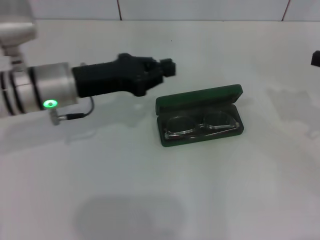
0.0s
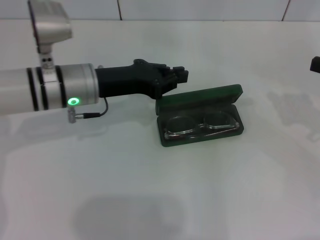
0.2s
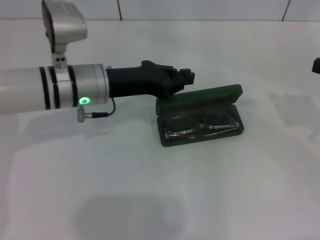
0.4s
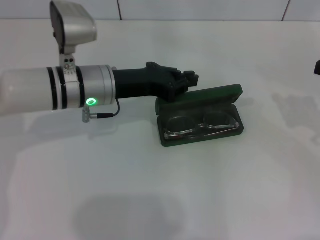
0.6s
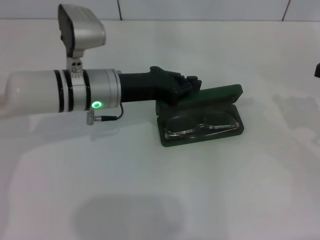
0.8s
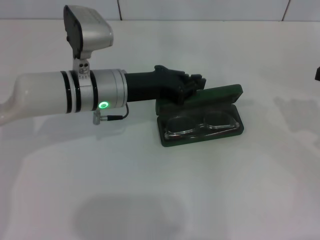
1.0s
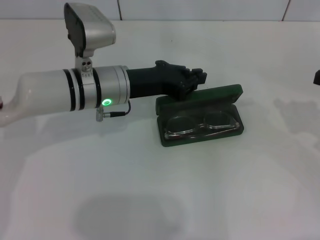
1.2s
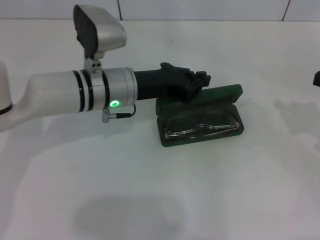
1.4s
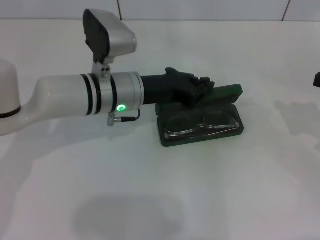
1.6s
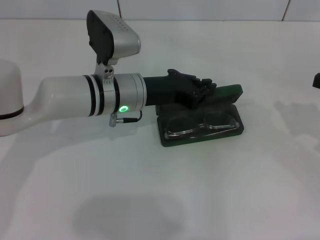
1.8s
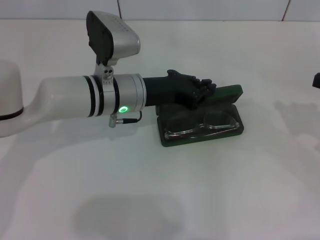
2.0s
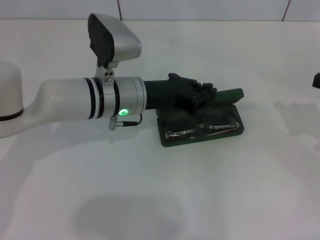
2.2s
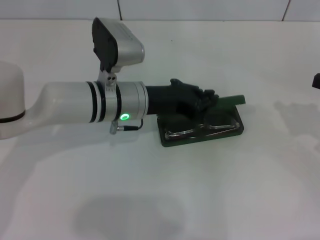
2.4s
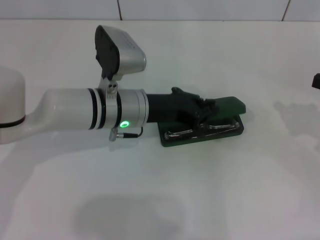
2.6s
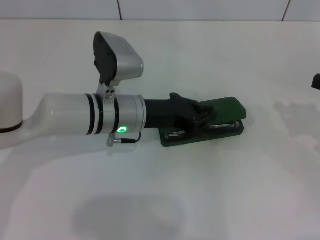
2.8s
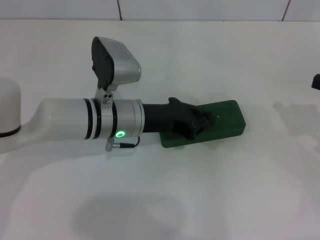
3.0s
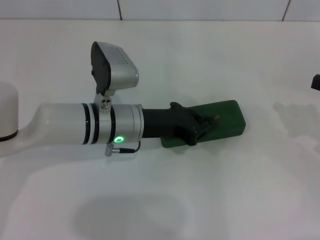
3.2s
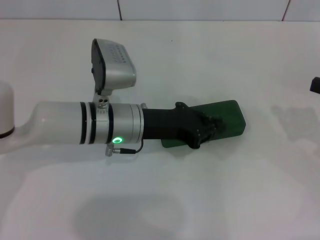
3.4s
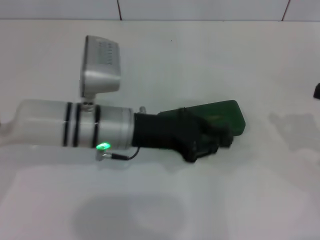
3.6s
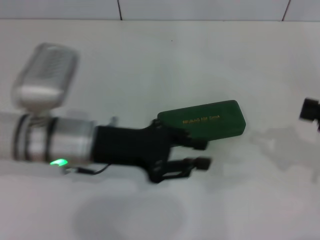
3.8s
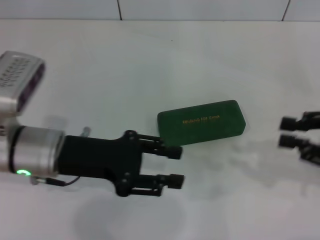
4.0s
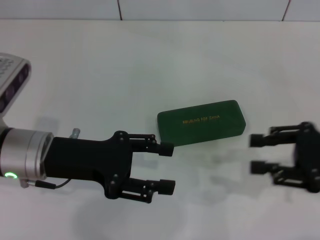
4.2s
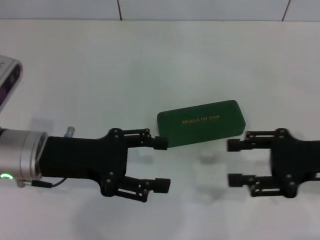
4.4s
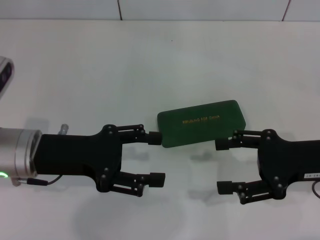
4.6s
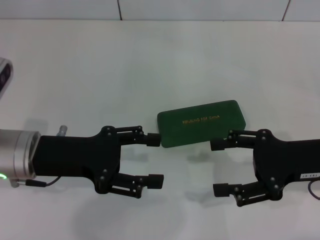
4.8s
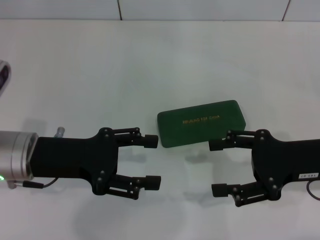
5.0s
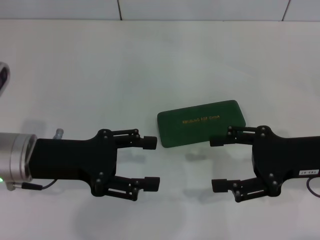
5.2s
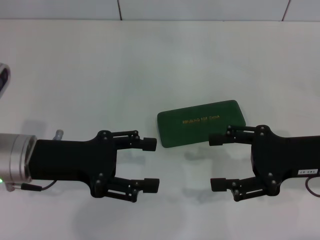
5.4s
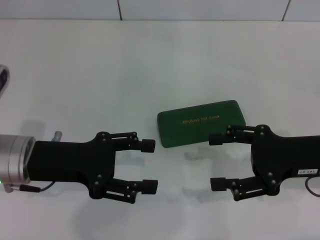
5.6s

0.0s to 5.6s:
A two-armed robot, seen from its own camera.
Step, 0.0s to 2.8s: Close the glasses case with your left hand.
0.0s to 1.4s: The left gripper heads to the right, covering roughly 10 cm.
1.4s to 2.8s: There are only small adjustments of the grippers.
2.8s to 4.2s: The right gripper shifts about 5 cm to the left; the left gripper shifts some 15 cm to the left and backward, and opens its fingers.
4.2s to 5.6s: The right gripper goes approximately 5 cm to the left, and opens up.

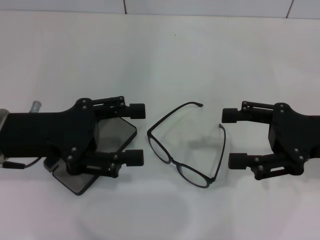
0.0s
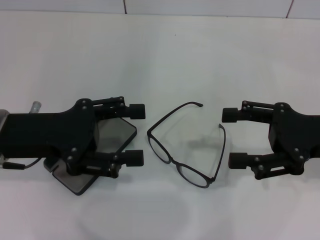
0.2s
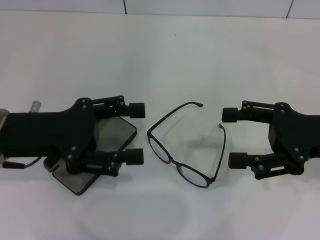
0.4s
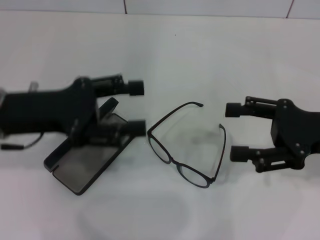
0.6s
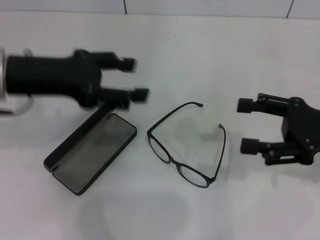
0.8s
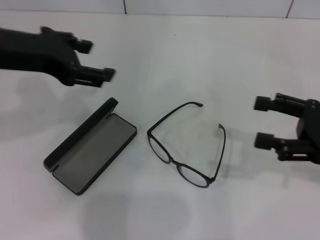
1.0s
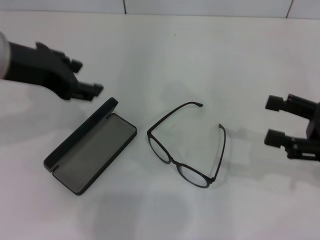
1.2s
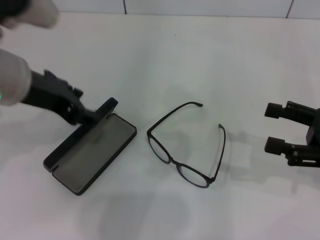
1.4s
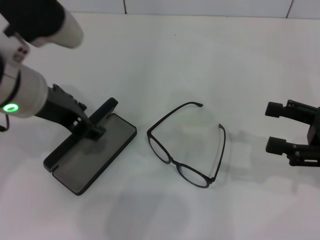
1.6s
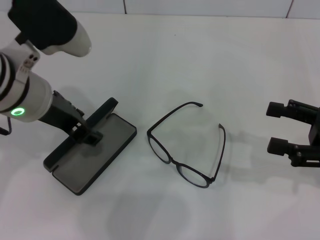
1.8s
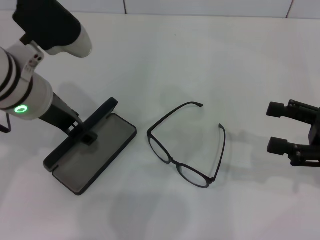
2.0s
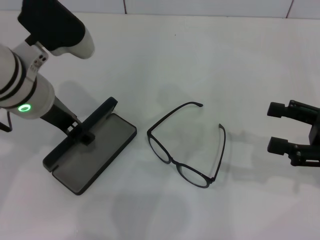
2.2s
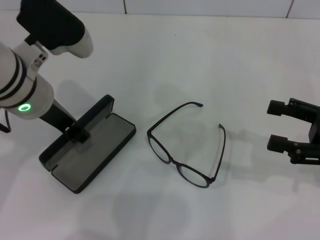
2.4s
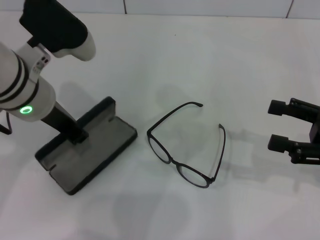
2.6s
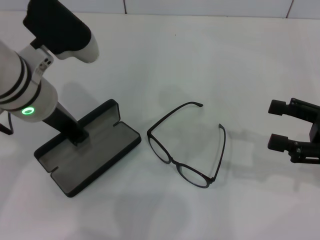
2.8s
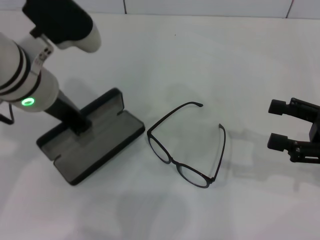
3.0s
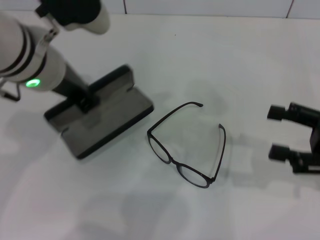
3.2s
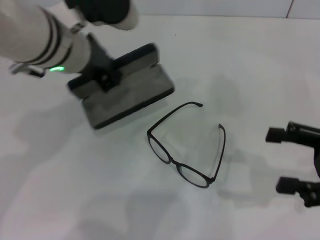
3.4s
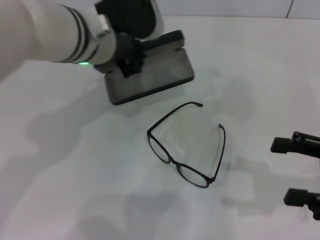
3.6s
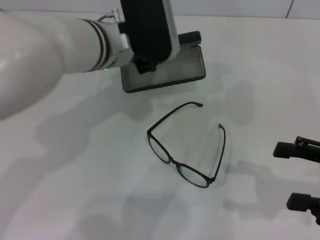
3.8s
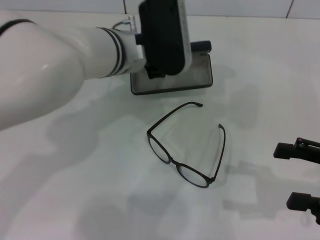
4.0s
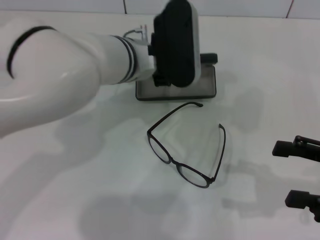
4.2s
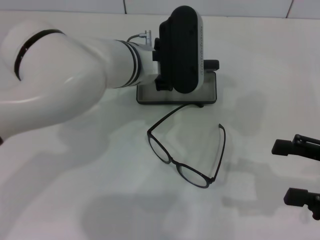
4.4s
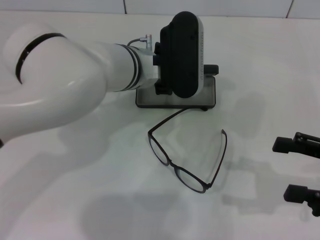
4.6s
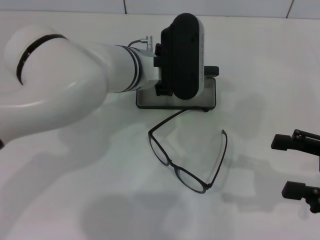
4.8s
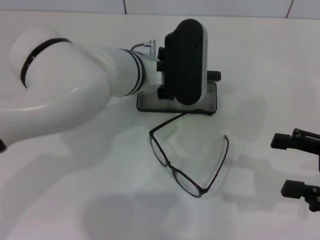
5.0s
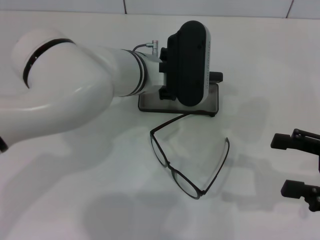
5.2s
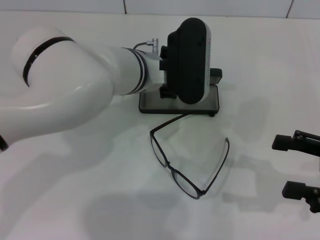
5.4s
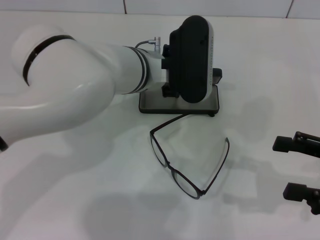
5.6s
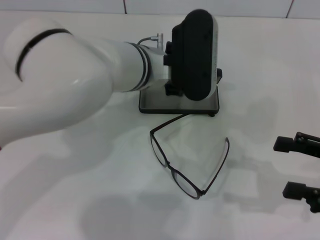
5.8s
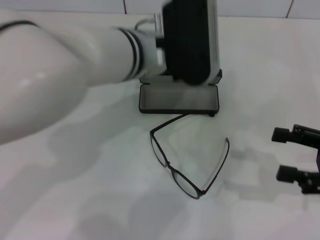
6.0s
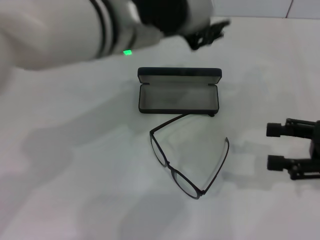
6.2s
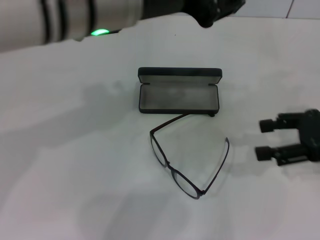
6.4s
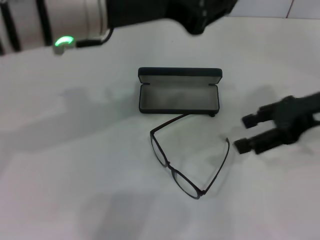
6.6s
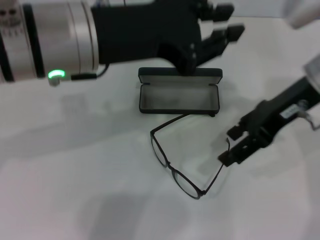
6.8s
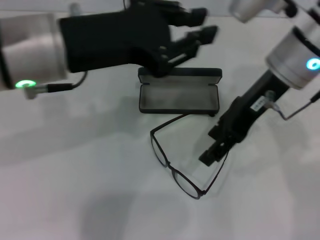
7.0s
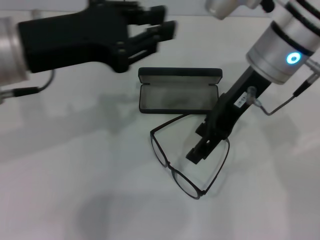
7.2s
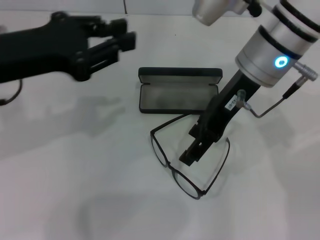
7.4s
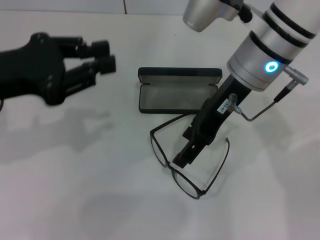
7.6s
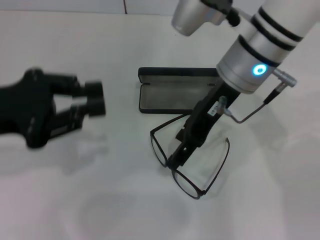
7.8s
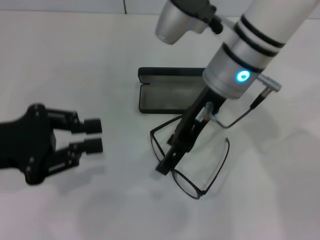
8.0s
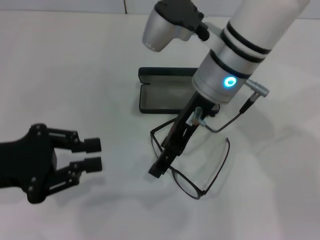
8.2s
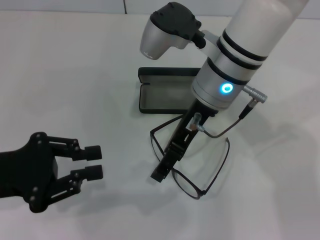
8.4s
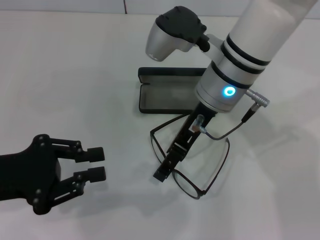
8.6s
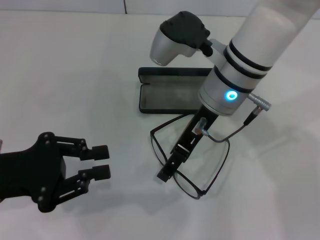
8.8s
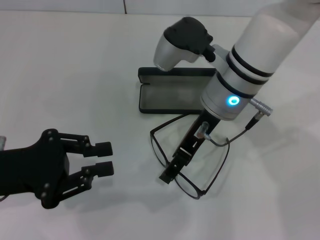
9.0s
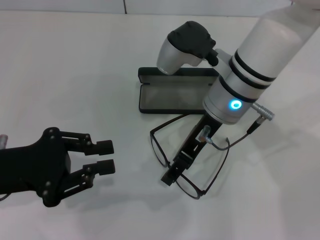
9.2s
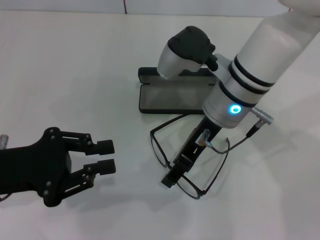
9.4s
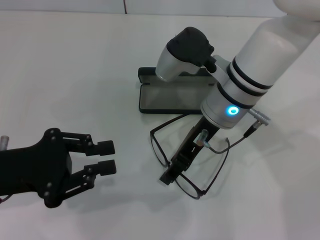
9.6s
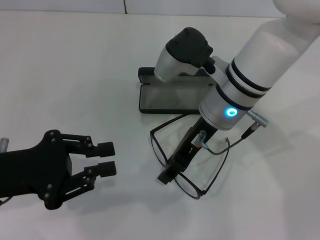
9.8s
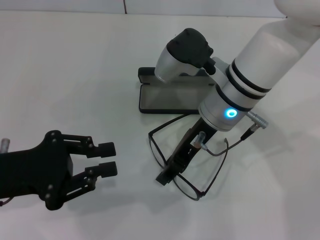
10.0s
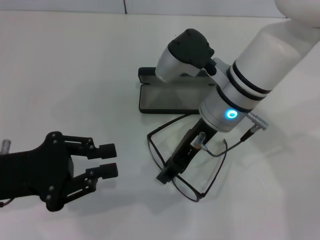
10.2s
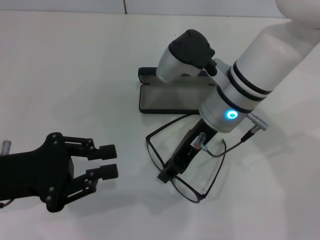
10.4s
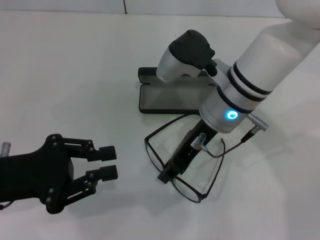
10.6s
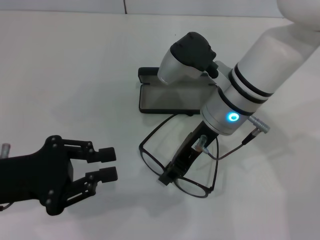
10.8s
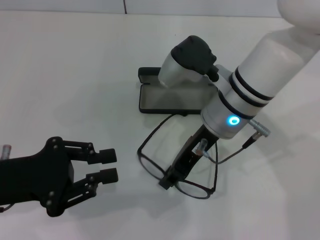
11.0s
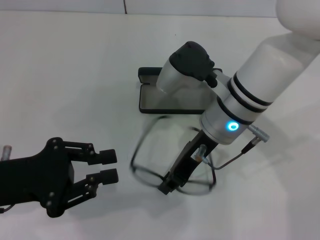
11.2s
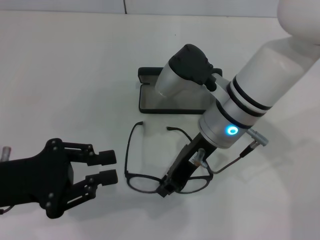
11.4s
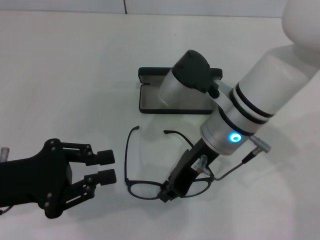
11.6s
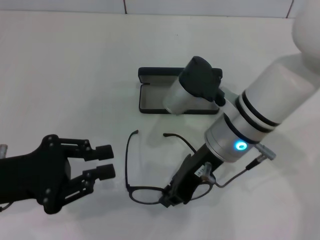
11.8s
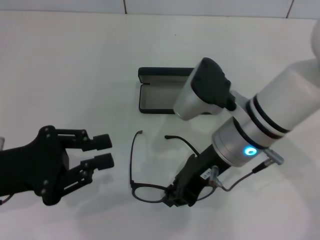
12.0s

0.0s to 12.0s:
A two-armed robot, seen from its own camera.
Step, 0.0s to 2.4s: Grab the glasses case with your left hand.
Step, 2.6s to 5.8s: Place the glasses case in the center of the table with your left hand.
Step, 6.0s to 12.0s: Grab the eyeglass frame with your right hand.
0.0s to 1.6s: The right gripper travels to the right by roughly 5 cm. Meanwhile the left gripper is displaced upward and to the right by about 10 cm.
1.6s to 3.0s: The left gripper closes.
3.0s to 4.4s: The left gripper heads to the right, downward and forward, covering some 15 cm.
4.4s to 6.0s: The left gripper moves some 5 cm, and opens.
6.0s to 7.6s: The right gripper shifts about 30 cm to the left, forward and upward. The left gripper heads to the left, covering approximately 20 cm.
7.6s to 9.0s: The left gripper travels downward by roughly 10 cm. Meanwhile the right gripper travels downward by roughly 5 cm.
9.0s to 10.4s: The right gripper closes its fingers.
10.4s to 12.0s: The right gripper moves about 5 cm, and closes up.

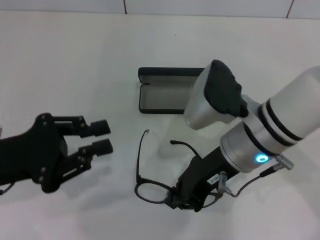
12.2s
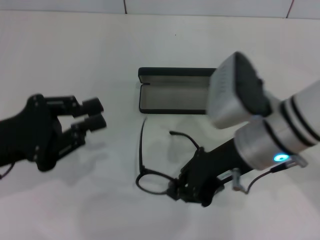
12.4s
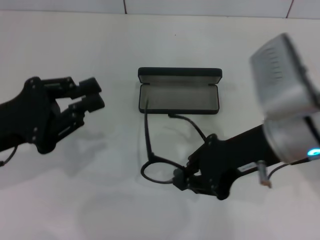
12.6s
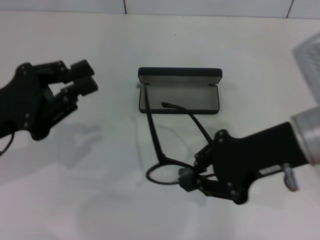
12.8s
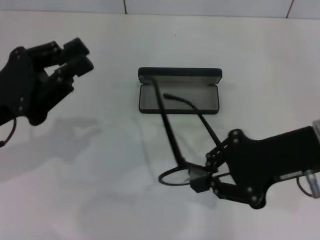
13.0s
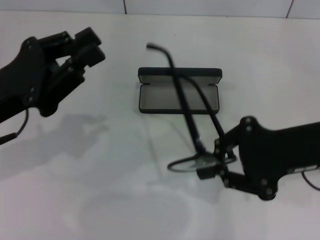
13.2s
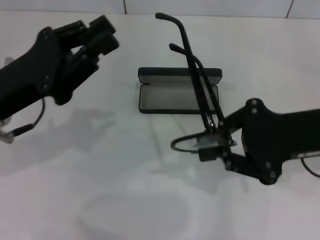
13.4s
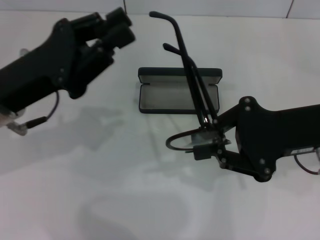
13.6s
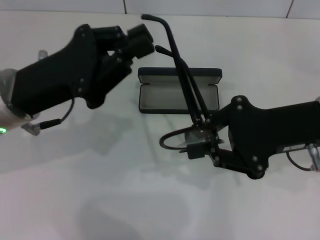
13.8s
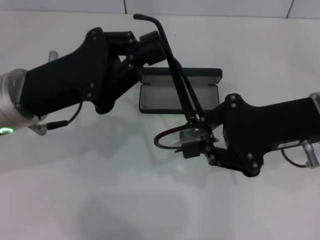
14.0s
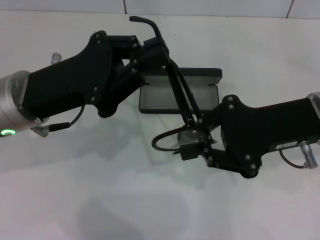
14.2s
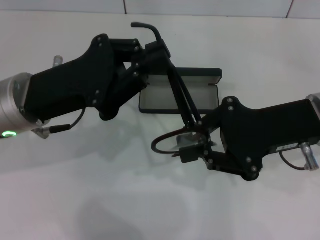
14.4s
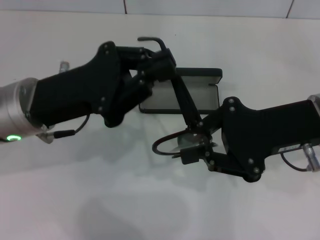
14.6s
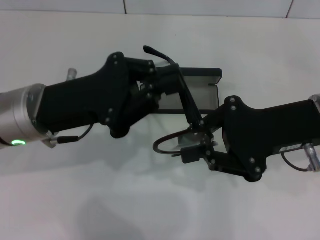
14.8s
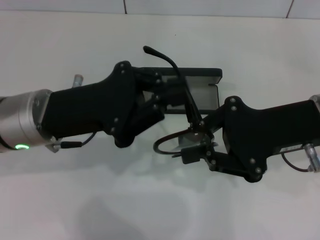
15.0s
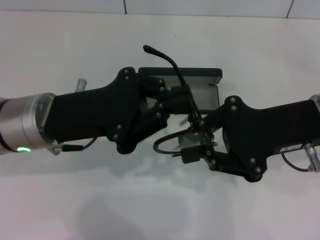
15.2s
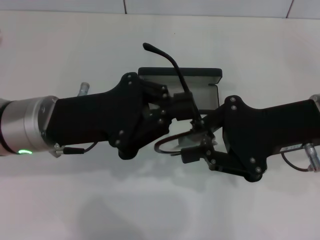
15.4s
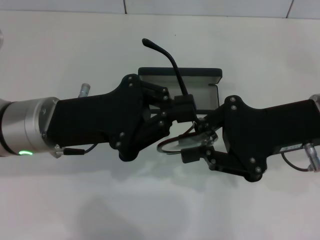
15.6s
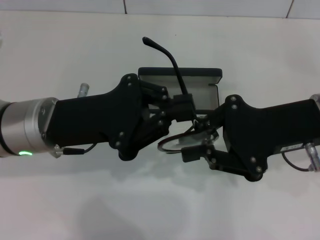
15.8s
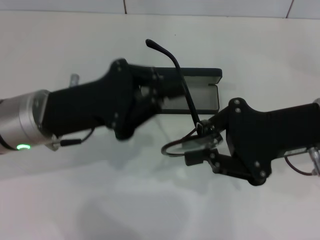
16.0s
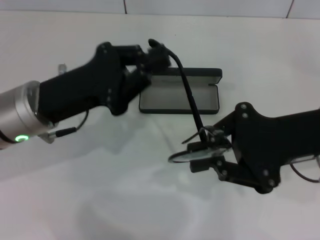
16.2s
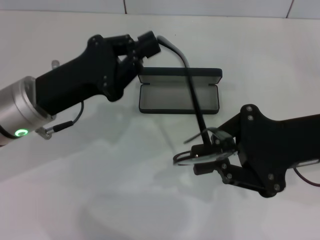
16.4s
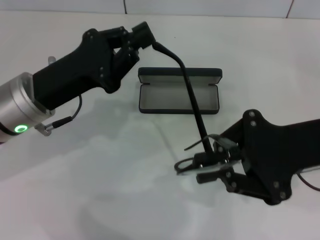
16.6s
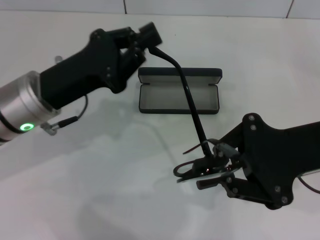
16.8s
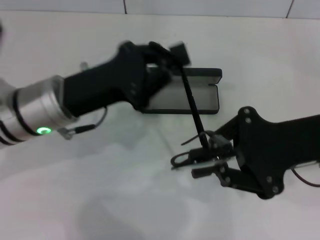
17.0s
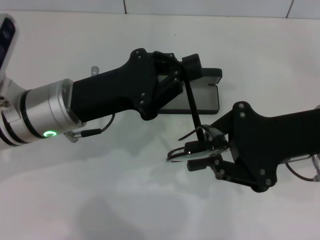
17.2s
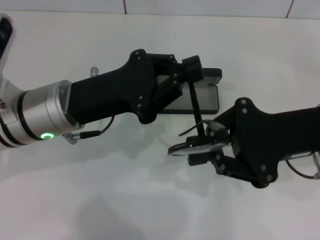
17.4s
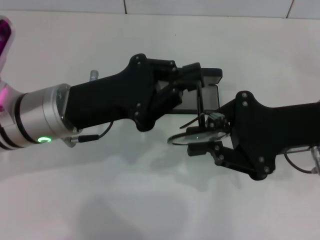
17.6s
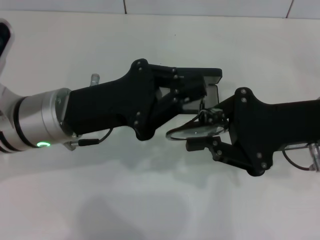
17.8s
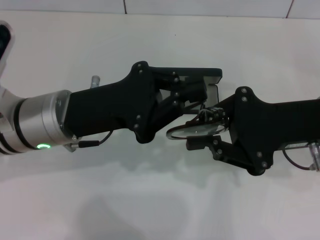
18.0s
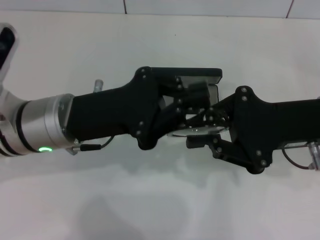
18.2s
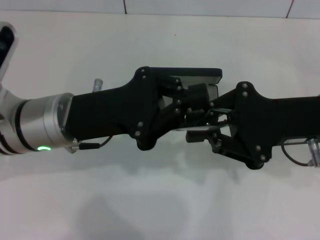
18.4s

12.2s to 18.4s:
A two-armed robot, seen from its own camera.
12.2s to 13.8s: The right gripper travels to the right by some 10 cm. Meanwhile the left gripper travels forward and to the right by approximately 10 cm.
